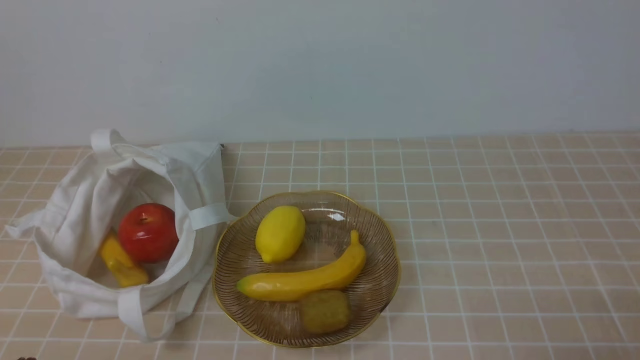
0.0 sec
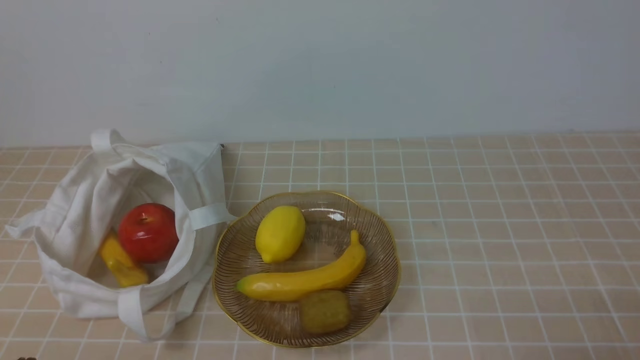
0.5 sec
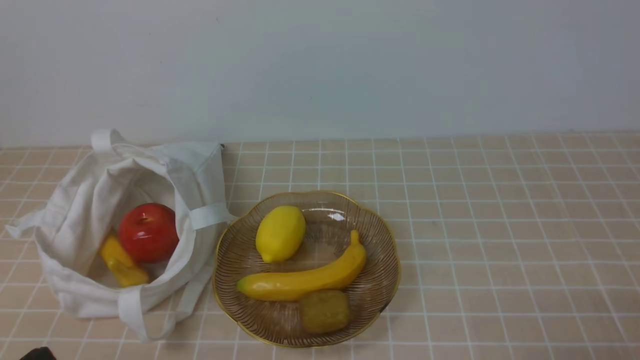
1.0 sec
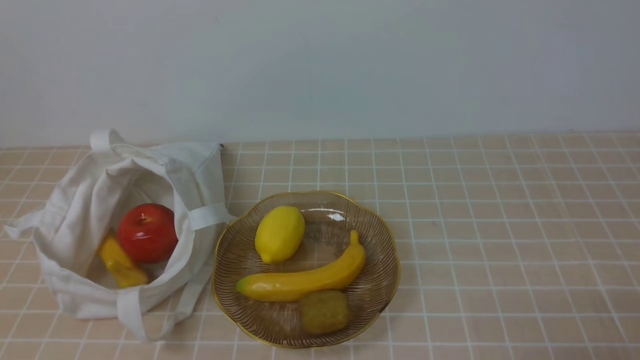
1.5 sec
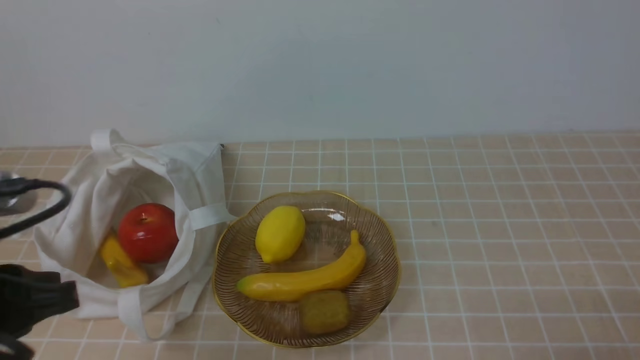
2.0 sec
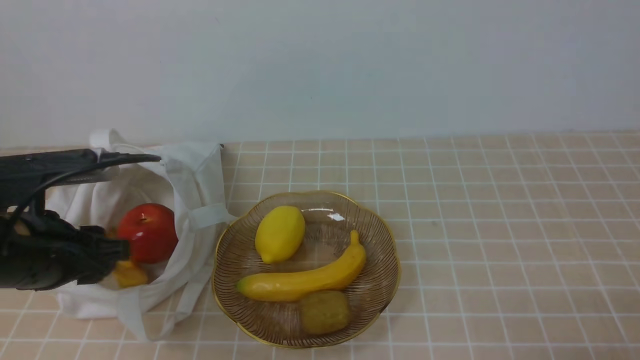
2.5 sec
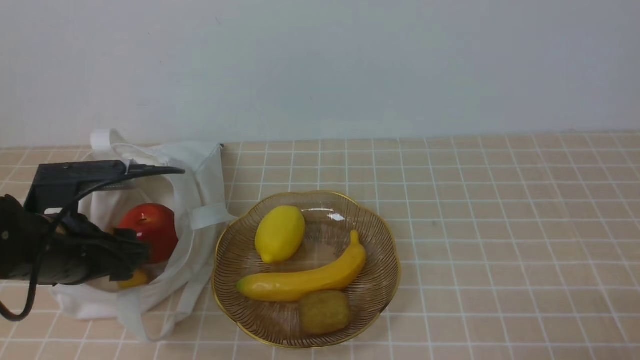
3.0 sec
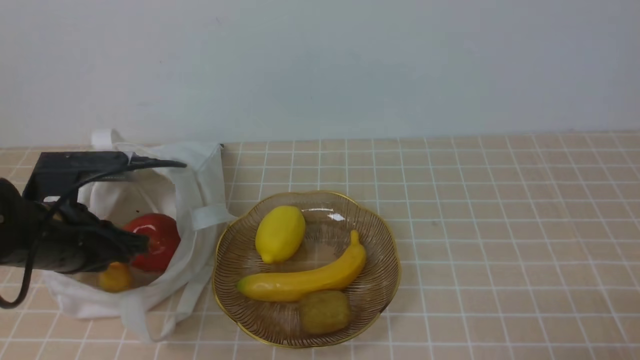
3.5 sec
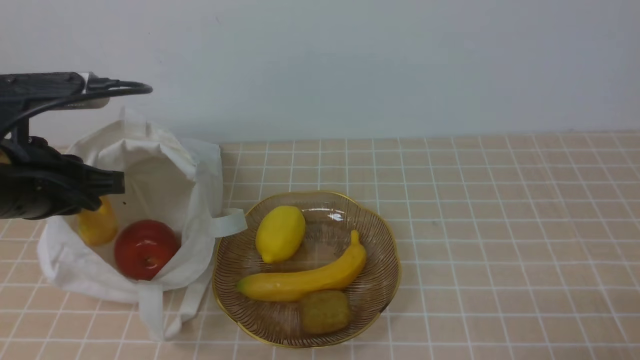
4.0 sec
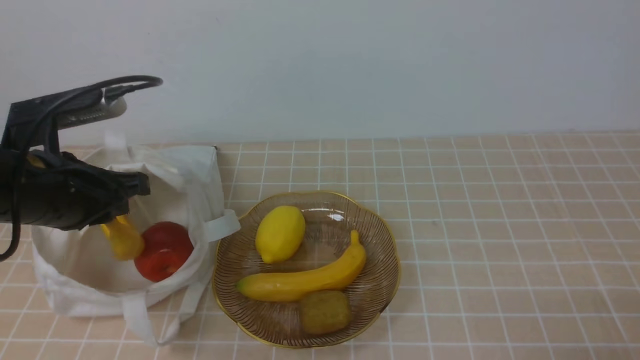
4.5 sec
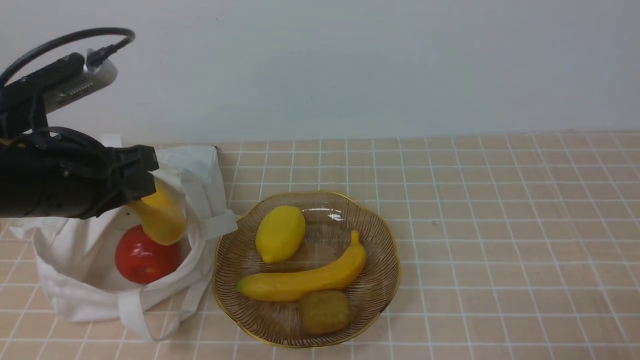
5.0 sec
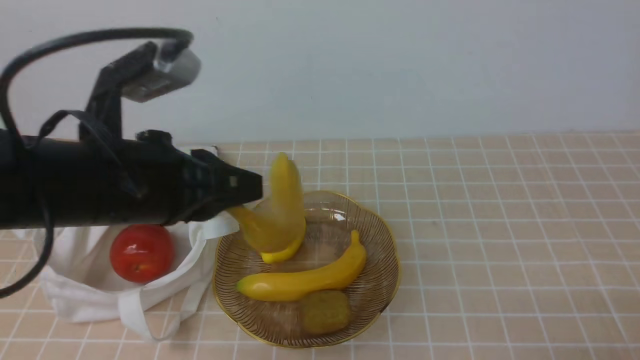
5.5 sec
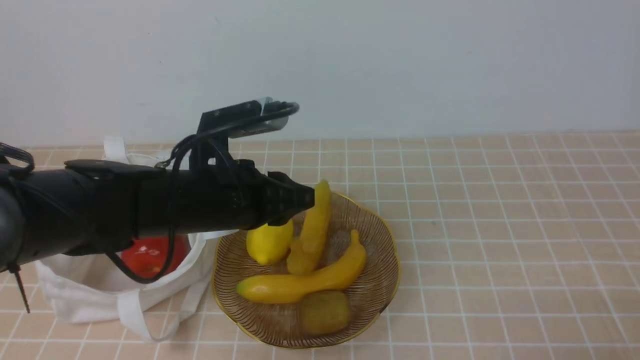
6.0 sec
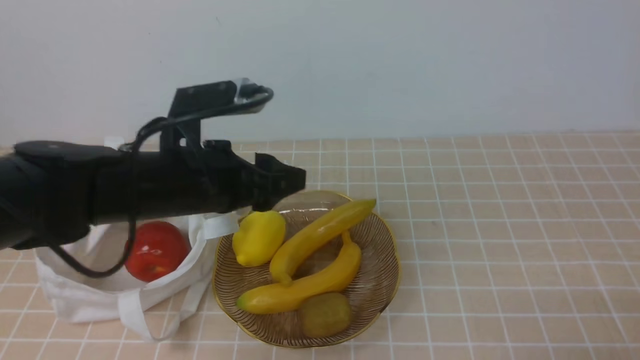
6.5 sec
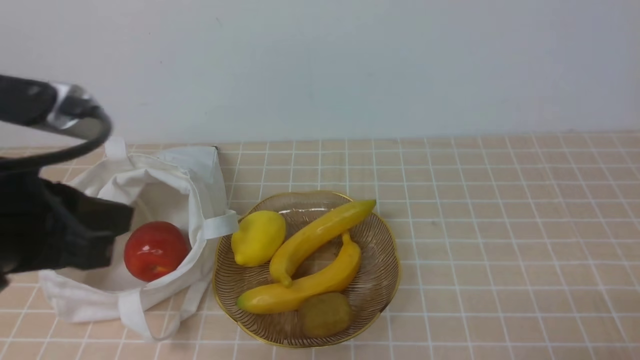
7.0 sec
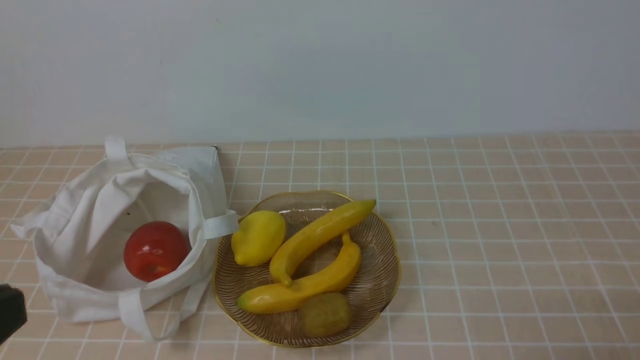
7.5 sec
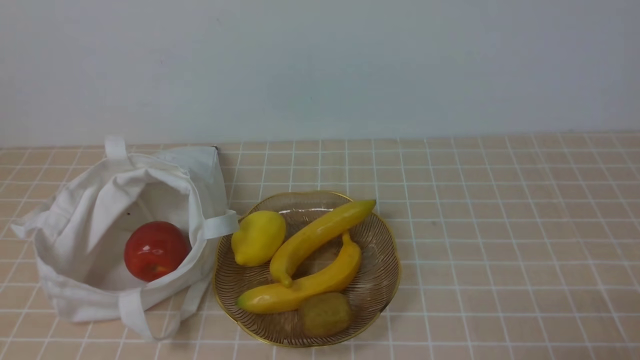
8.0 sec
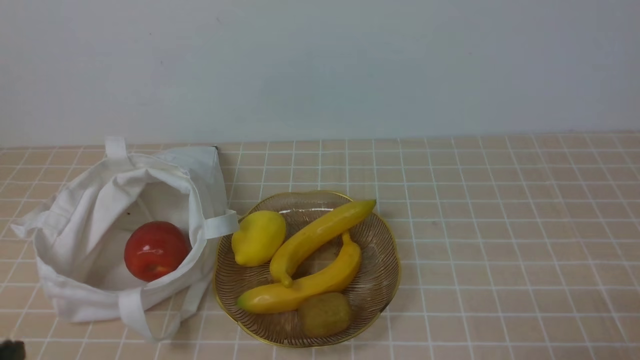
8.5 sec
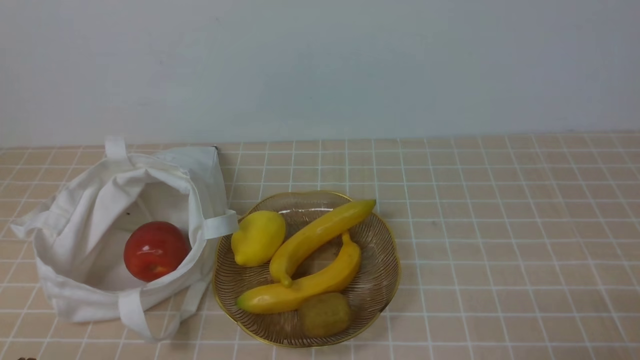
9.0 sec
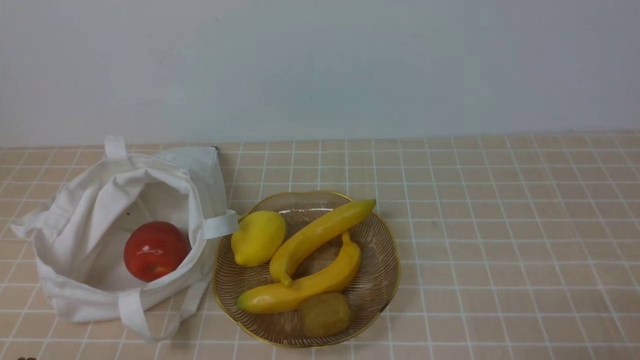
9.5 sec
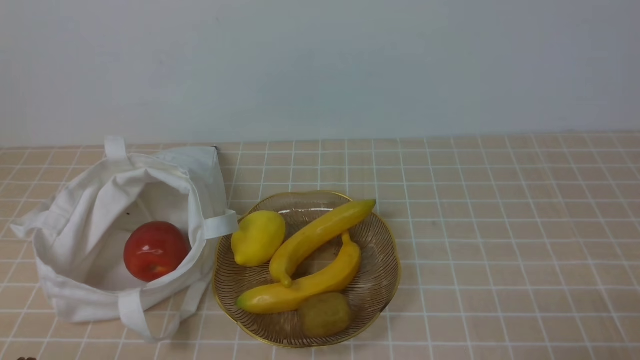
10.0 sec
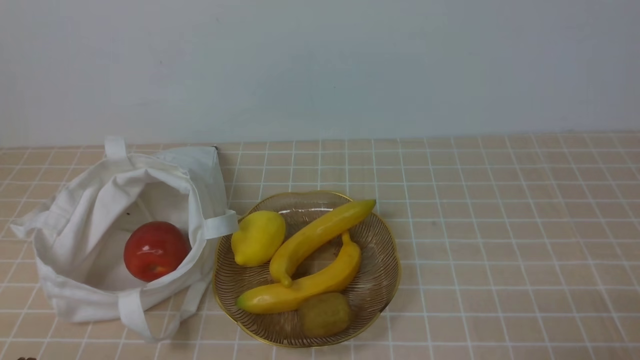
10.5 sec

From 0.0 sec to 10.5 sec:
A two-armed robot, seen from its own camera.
Step, from 0.0 sec to 4.0 sec: use the left arm to grab a banana from the bag.
Step, from 4.5 sec to 6.0 sec: use the left arm to put the banana into the empty plate on the right.
From 2.0 sec to 4.0 sec: The left gripper shifts approximately 15 cm forward, and opens and closes again.
From 4.0 sec to 6.5 sec: The left gripper heads to the right, covering about 10 cm, and opens.
From 6.5 sec to 8.5 sec: The left gripper heads backward and to the left, covering approximately 25 cm, and closes its fingers.
